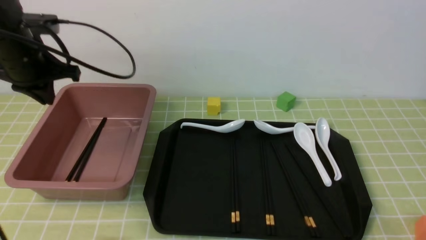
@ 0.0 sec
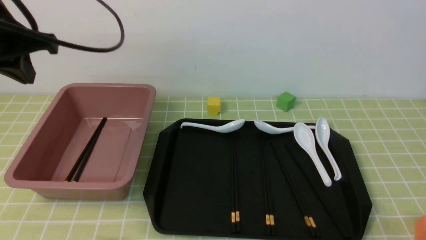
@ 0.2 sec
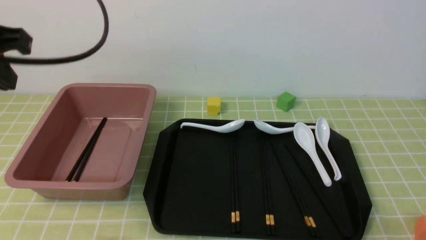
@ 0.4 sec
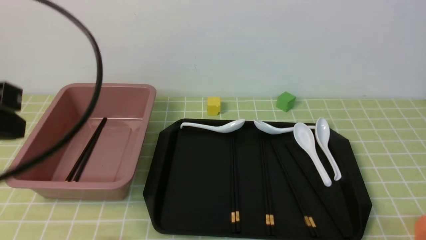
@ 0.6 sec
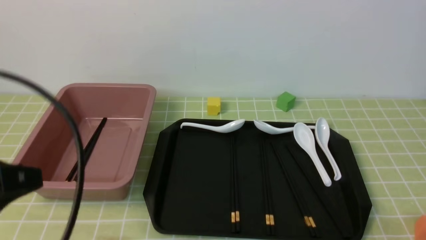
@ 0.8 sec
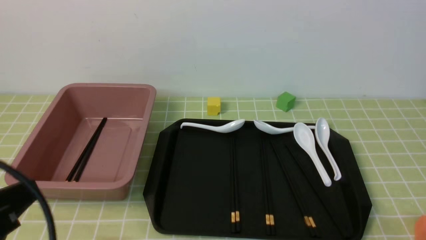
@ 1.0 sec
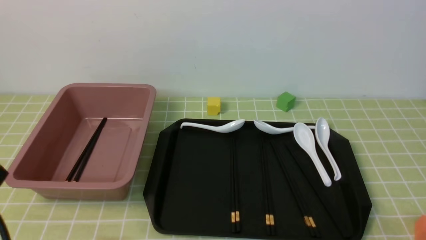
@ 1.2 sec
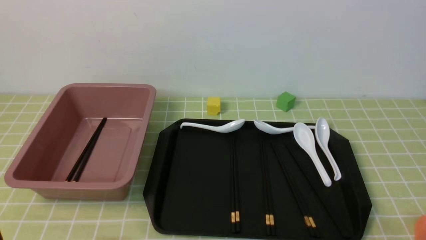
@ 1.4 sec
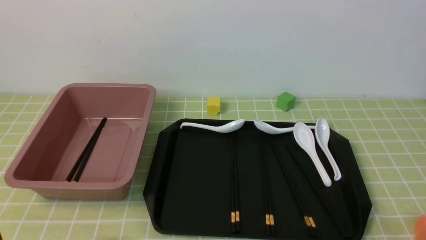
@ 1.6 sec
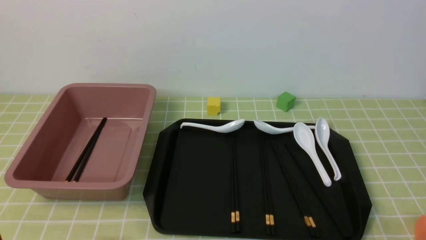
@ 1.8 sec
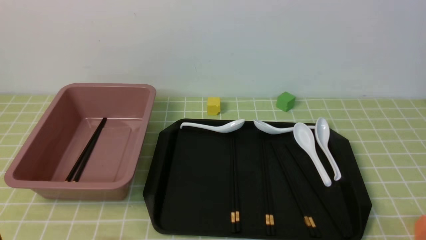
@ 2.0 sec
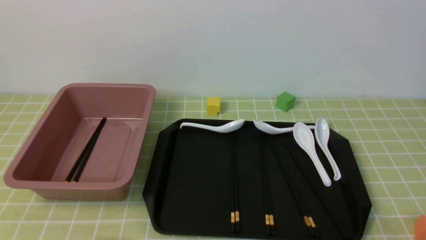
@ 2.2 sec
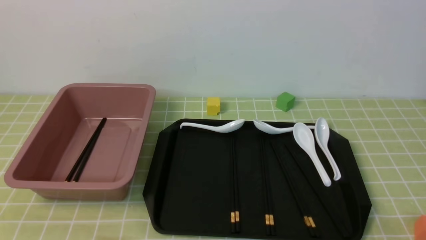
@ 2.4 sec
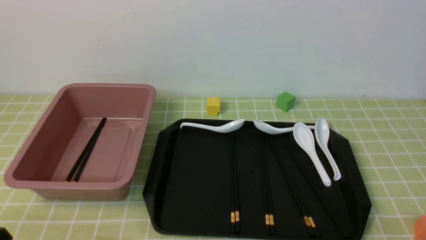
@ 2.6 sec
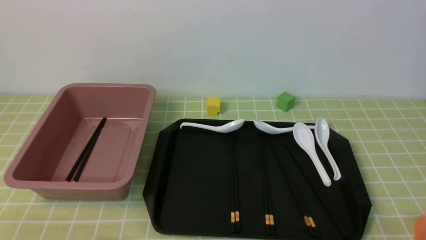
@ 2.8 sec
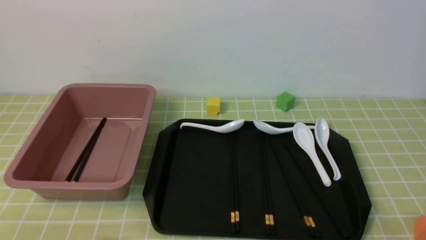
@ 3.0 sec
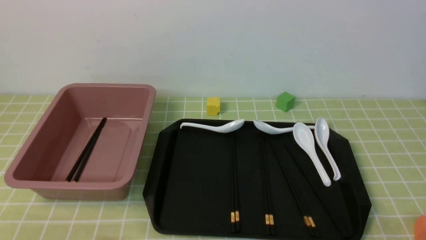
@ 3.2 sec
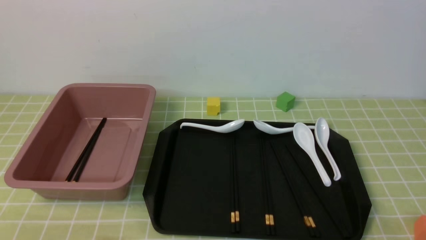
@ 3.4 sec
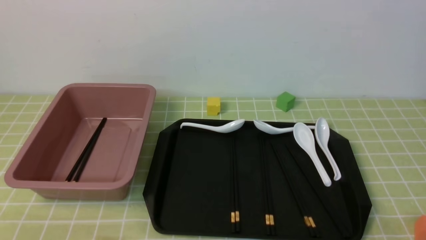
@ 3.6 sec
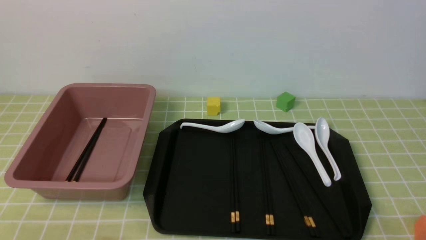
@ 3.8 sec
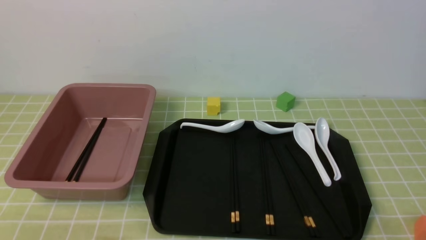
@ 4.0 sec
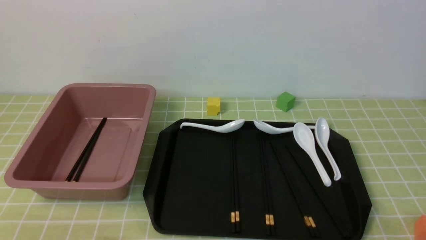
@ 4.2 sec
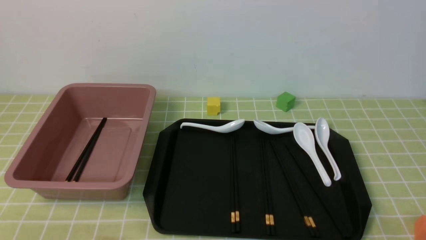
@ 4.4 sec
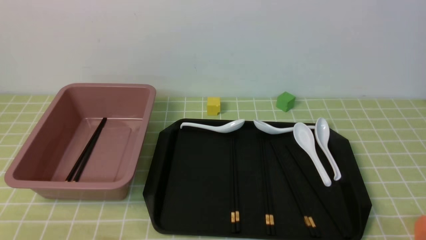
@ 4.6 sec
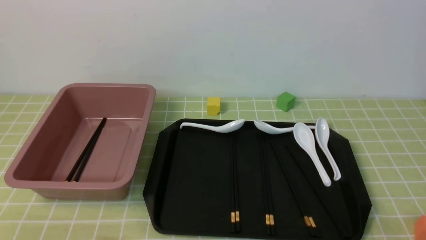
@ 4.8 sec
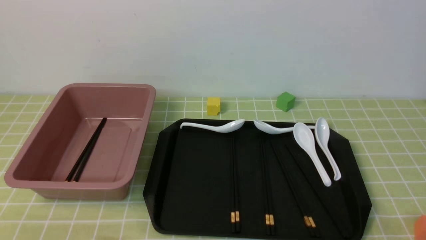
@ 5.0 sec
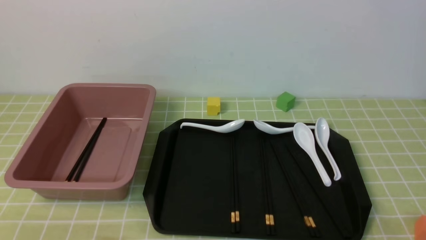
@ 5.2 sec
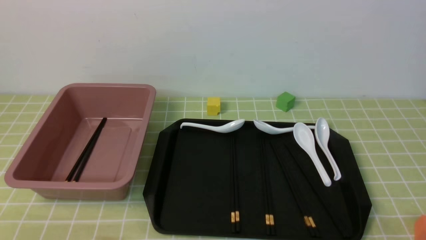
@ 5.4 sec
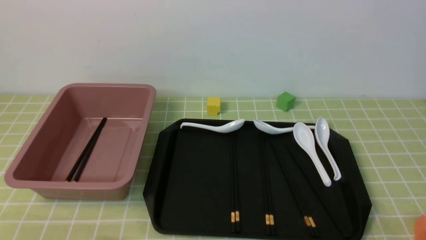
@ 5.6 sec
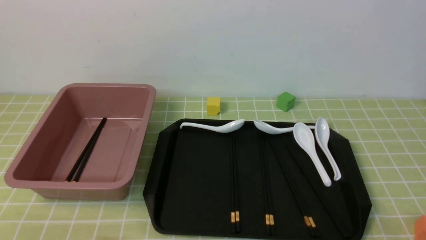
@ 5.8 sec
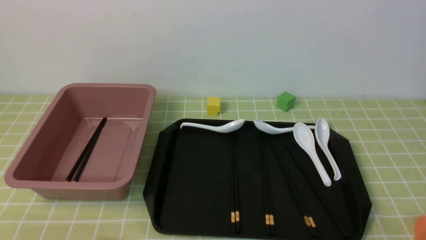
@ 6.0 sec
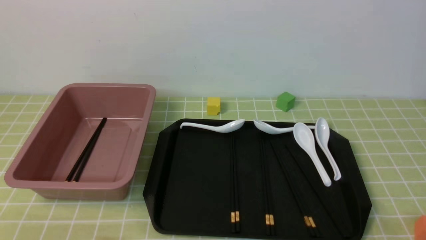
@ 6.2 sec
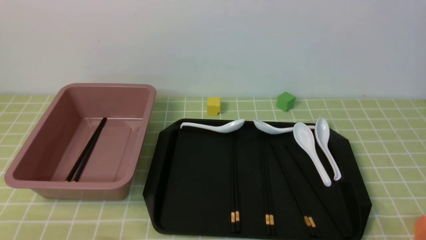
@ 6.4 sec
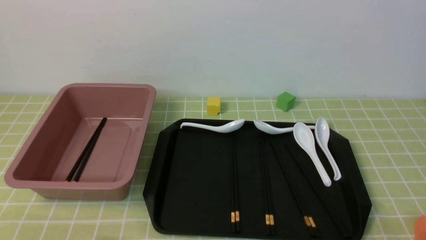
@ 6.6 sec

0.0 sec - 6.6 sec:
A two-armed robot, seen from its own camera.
0.0 sec - 1.6 sec: The left gripper is displaced backward by about 30 cm.
3.2 sec - 6.6 sec: Both grippers stay about where they are.

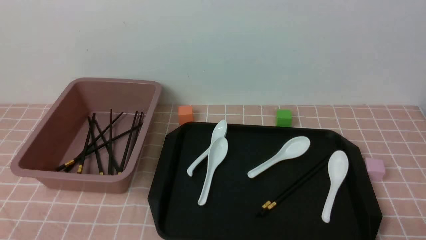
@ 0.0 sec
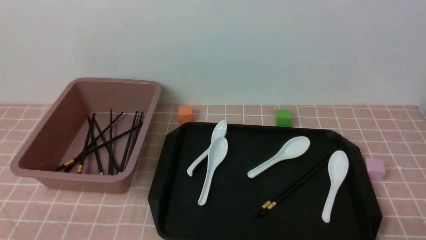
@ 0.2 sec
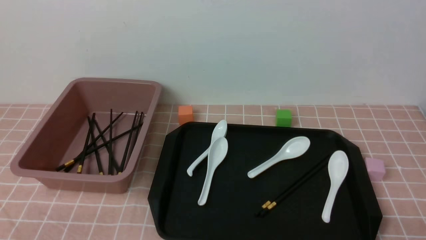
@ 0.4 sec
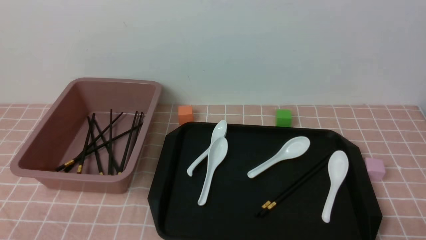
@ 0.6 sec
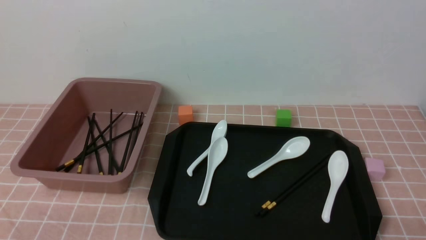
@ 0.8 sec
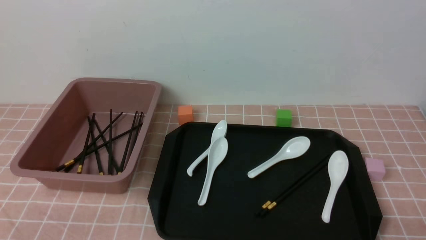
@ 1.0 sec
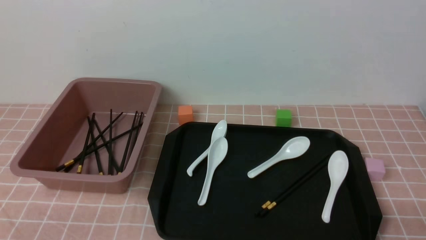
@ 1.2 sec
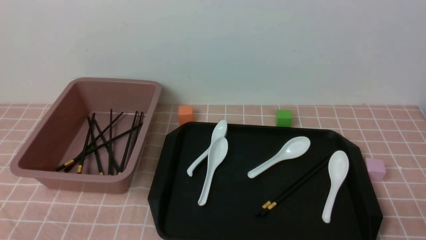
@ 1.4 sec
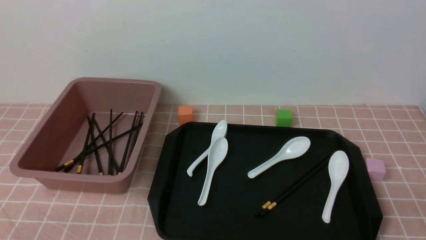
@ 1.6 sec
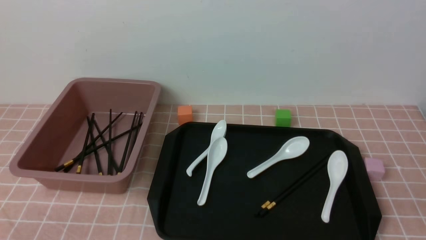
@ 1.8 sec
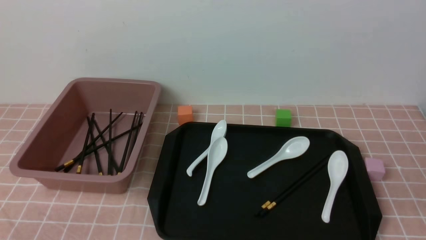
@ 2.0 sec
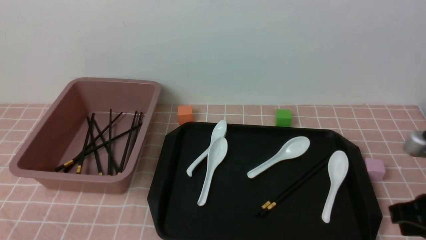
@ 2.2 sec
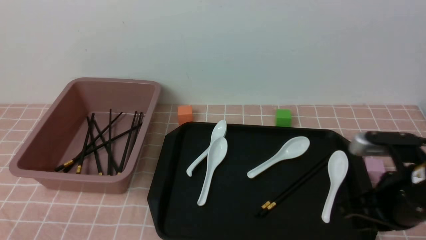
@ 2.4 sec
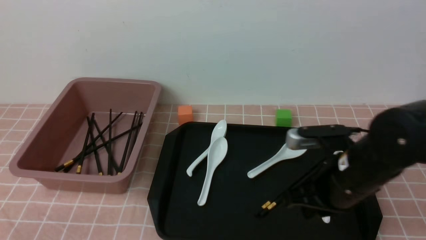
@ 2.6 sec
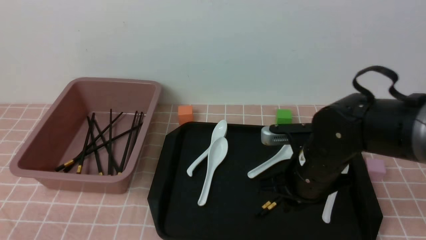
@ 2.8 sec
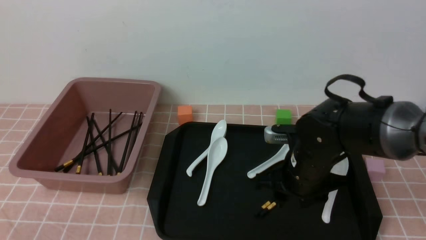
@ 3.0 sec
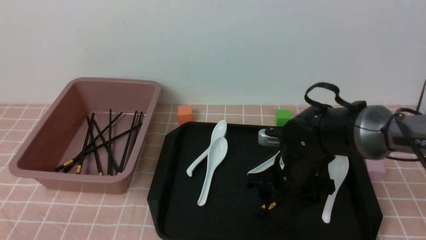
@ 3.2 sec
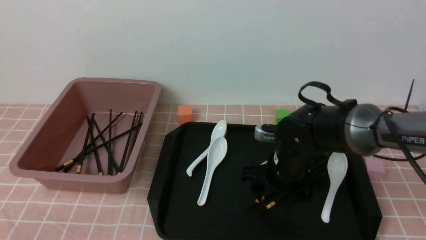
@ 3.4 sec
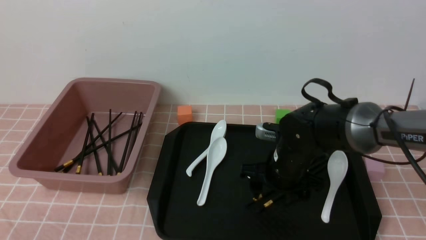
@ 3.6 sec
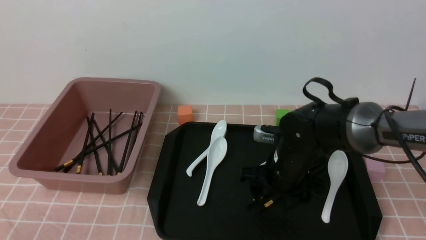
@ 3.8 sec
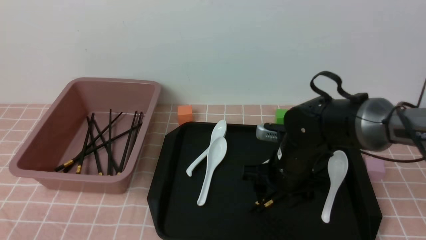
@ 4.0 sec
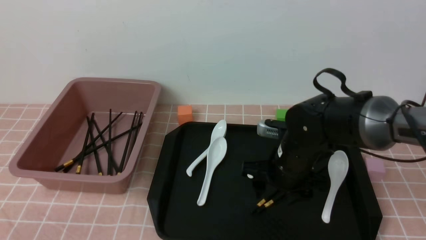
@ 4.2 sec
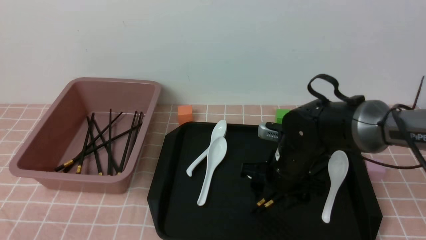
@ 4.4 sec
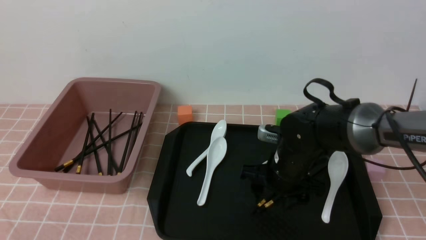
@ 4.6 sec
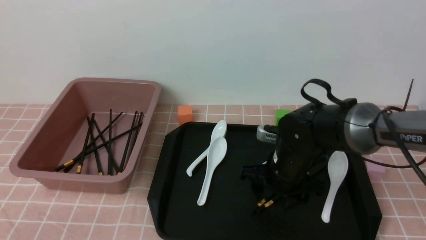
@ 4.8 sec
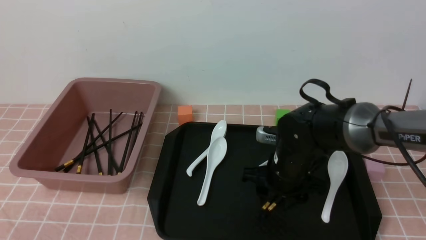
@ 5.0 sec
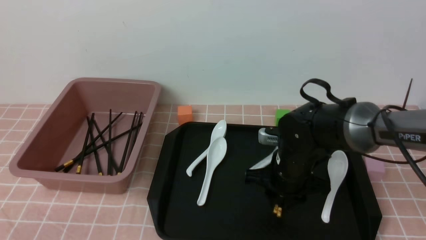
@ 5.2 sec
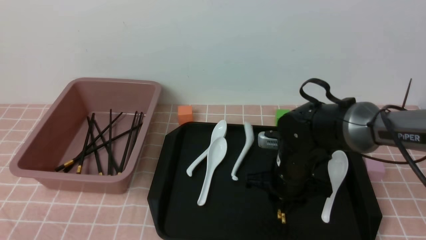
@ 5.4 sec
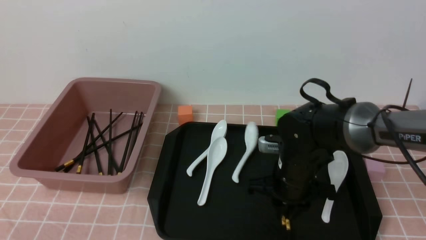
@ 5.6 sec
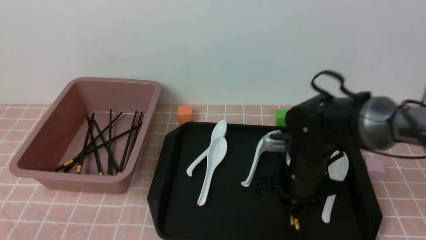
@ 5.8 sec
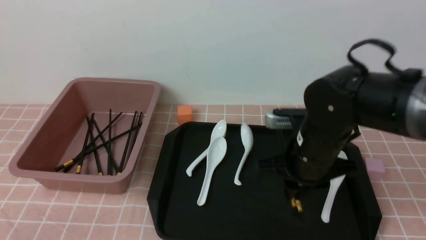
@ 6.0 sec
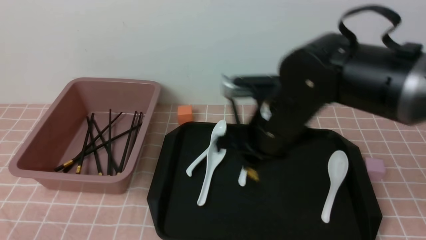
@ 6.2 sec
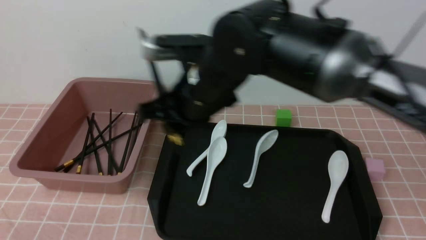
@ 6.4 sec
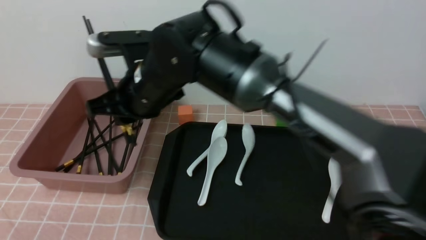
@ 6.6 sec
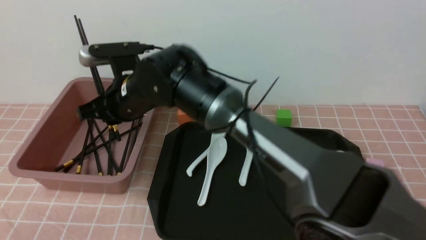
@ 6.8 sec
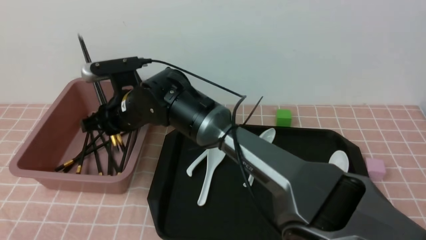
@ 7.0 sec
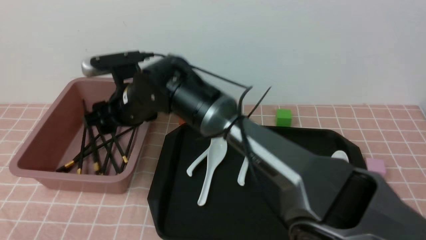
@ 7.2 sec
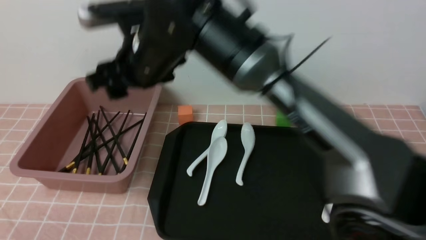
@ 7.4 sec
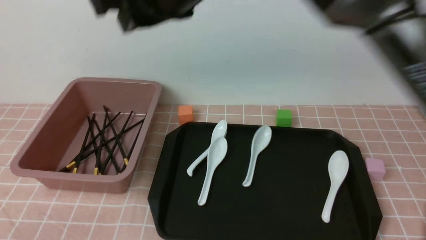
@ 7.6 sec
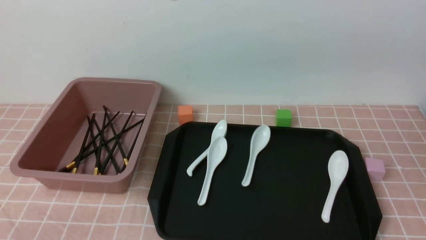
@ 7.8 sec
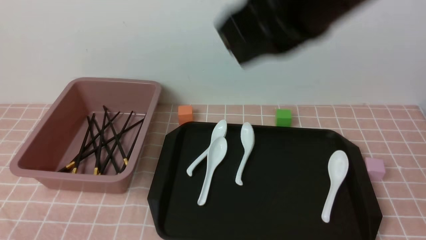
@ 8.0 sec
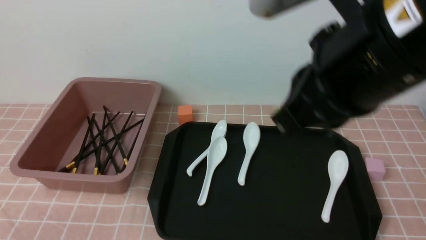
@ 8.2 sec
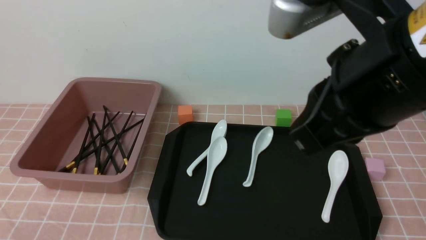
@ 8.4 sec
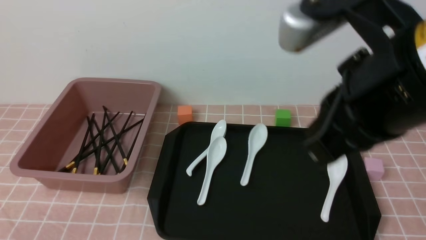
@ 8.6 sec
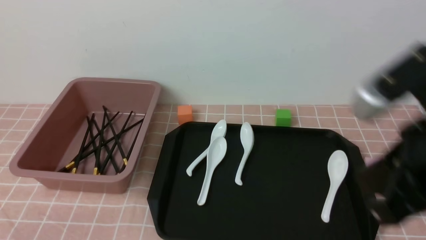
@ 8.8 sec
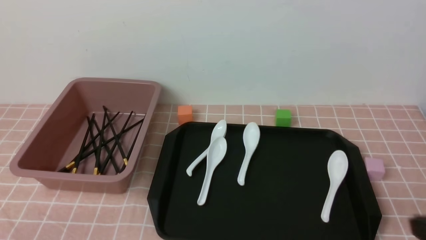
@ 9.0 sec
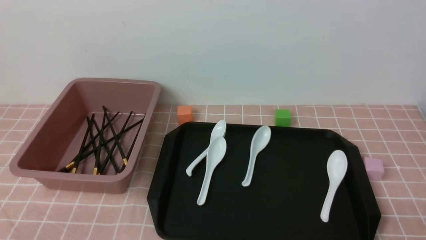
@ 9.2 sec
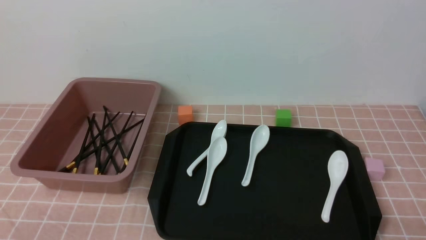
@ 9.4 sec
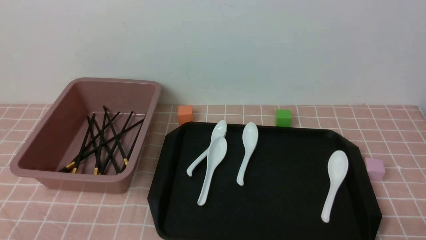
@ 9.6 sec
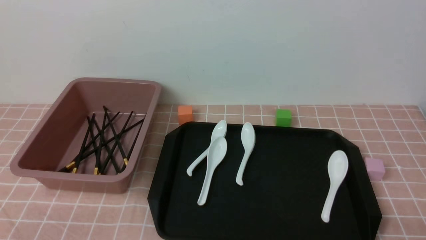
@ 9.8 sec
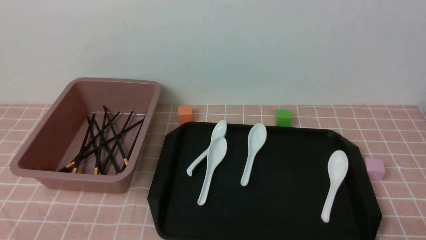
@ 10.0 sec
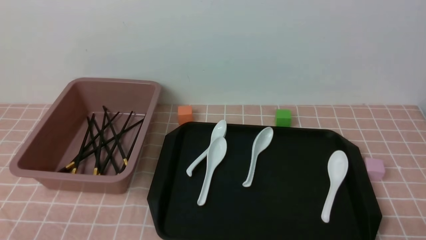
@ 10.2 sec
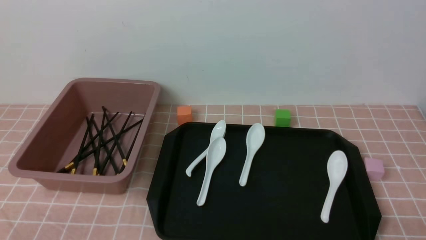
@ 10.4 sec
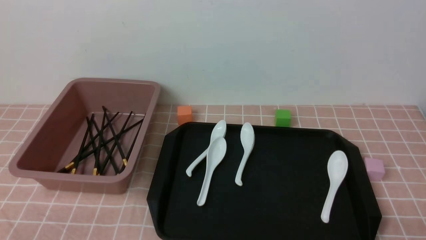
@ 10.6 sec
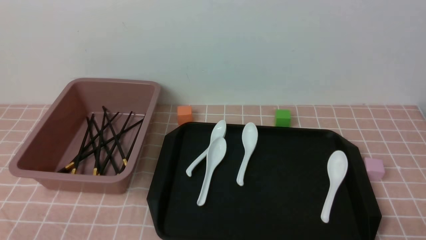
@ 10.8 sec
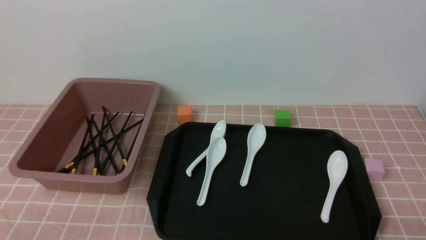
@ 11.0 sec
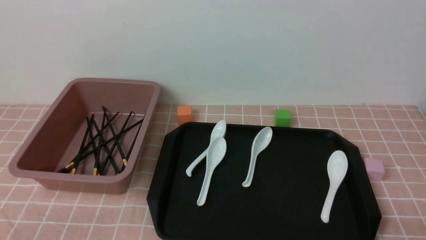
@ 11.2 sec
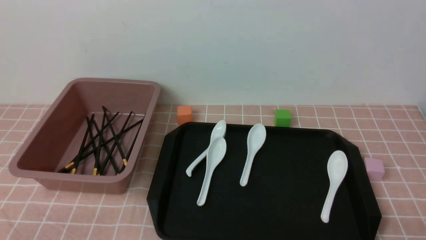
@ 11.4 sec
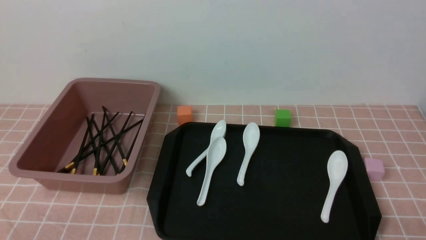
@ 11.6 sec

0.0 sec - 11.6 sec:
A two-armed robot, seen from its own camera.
Step, 0.0 sec - 6.0 sec: use the right arm to grab a pair of chopsticks.
Step, 6.2 sec - 7.4 sec: use the right arm to put the chopsticks into the lunch box.
1.4 sec - 2.8 sec: The right gripper travels forward and to the left by approximately 25 cm.
2.8 sec - 4.4 sec: The right gripper heads forward, covering about 5 cm, and opens its fingers.
4.4 sec - 5.8 sec: The right gripper closes.
5.8 sec - 7.2 sec: The right gripper is displaced to the left and upward by roughly 25 cm, and opens up.
7.2 sec - 8.8 sec: The right gripper goes roughly 35 cm to the right and backward, and closes.
8.8 sec - 10.2 sec: The right gripper is displaced downward, to the right and backward by roughly 25 cm.
10.2 sec - 11.6 sec: Both grippers stay about where they are.
